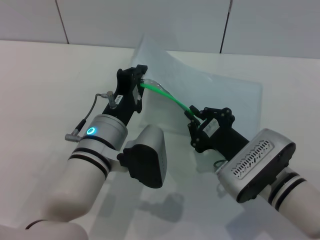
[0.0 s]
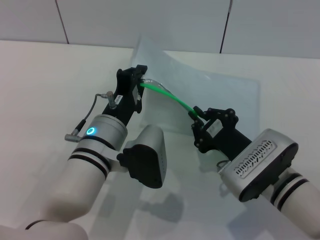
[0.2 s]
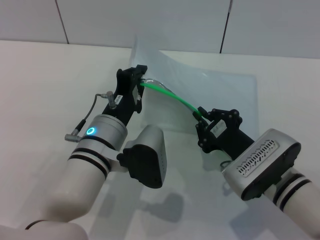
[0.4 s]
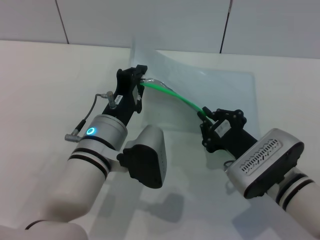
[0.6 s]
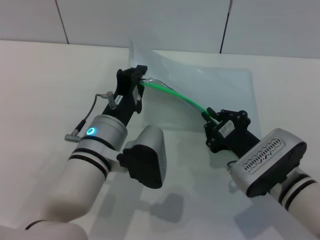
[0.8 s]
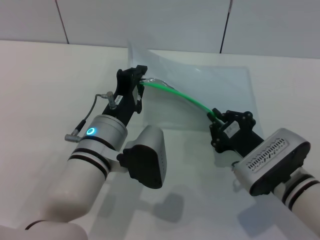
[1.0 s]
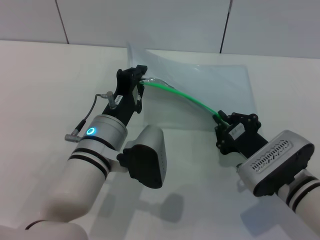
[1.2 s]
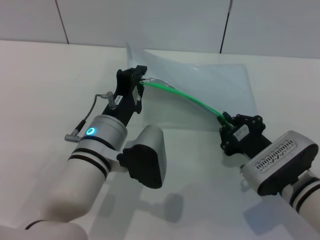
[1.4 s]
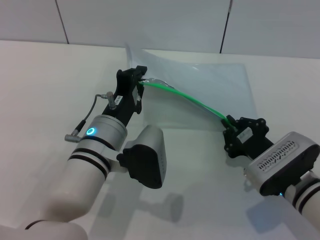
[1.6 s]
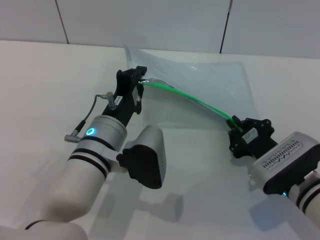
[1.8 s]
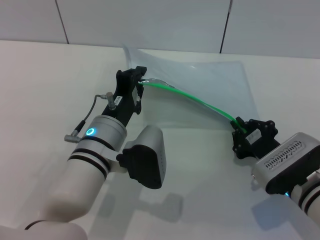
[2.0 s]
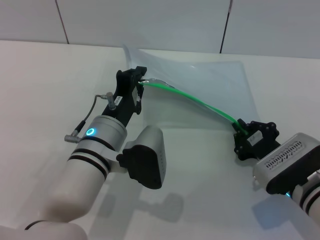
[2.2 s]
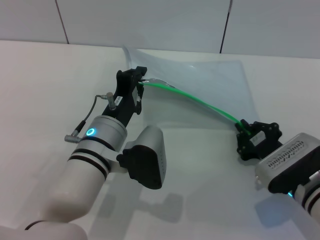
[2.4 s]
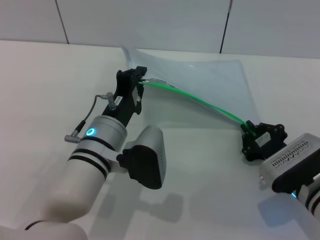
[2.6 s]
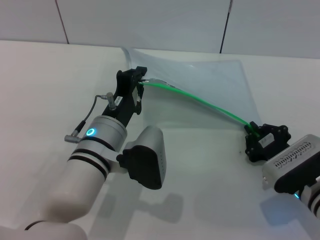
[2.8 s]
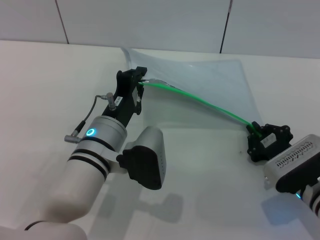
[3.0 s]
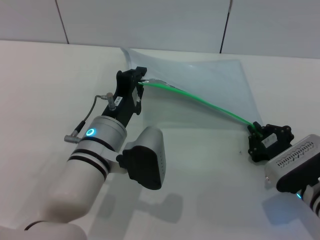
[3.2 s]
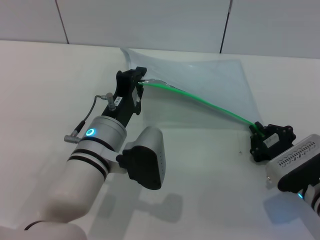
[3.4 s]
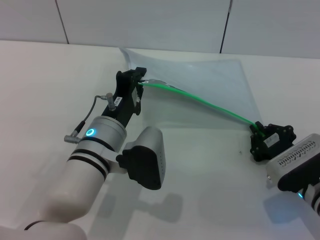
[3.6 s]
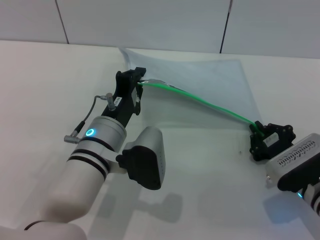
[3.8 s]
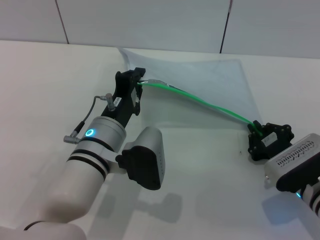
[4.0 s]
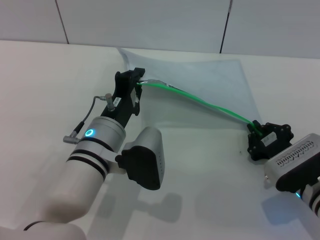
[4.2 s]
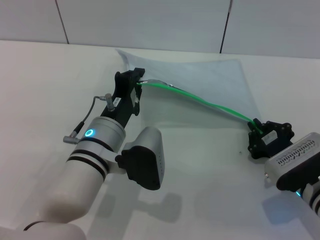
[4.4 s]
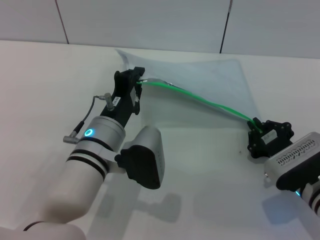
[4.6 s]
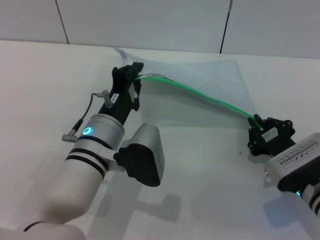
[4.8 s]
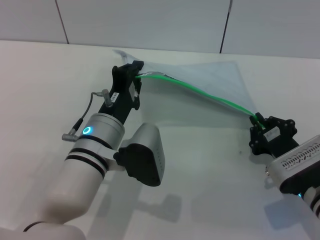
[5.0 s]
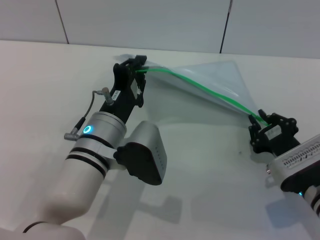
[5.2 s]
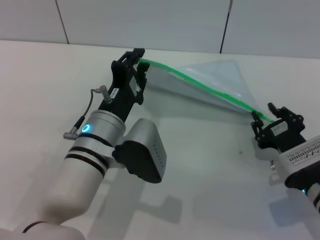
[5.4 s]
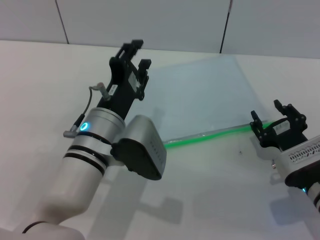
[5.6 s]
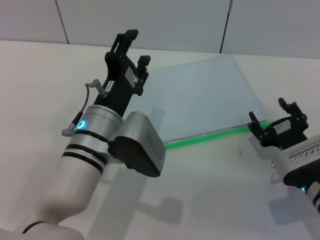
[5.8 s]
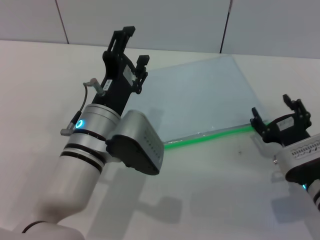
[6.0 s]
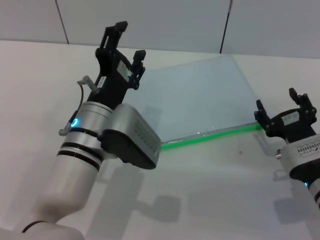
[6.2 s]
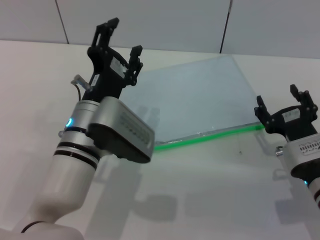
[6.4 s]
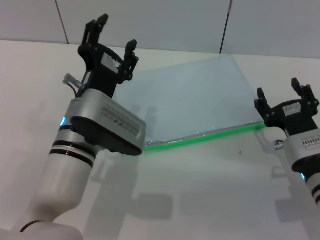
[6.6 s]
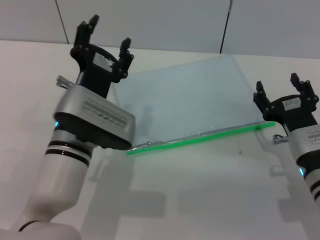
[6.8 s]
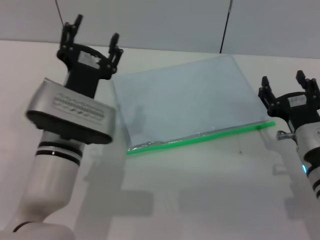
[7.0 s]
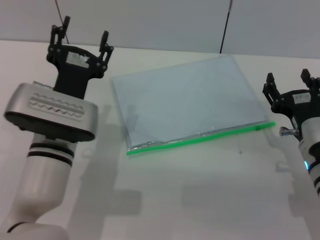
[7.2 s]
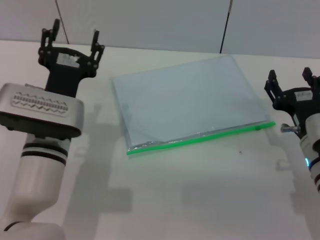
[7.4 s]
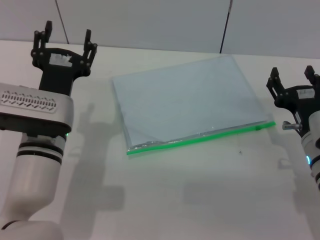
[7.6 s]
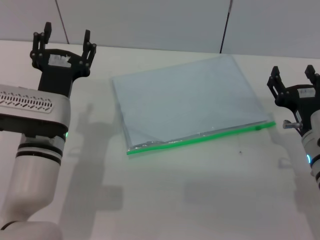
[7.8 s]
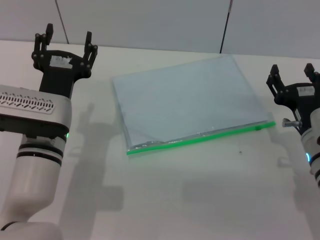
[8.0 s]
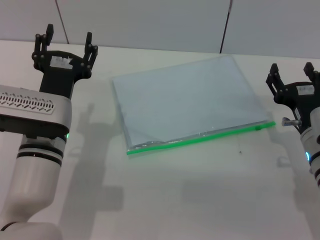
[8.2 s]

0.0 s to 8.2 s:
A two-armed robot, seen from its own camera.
Step, 0.0 to 5.2 s: Pulling up the zipper on the transparent plastic bag with the right gripper to close it.
Step, 5.4 to 5.8 s: Place the transparent plastic bag.
0.0 to 1.6 s: The right gripper shifts by roughly 5 cm.
1.6 to 5.0 s: There are only small adjustments of the grippers.
5.0 to 6.6 s: The left gripper opens; the right gripper opens its fingers.
6.6 to 8.2 s: The left gripper moves some 5 cm.

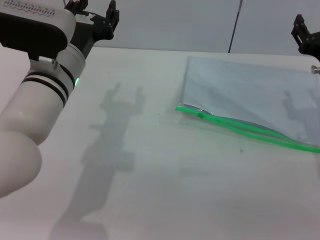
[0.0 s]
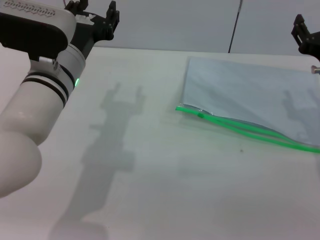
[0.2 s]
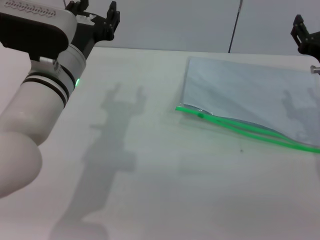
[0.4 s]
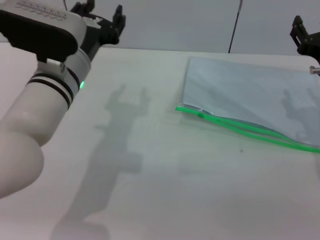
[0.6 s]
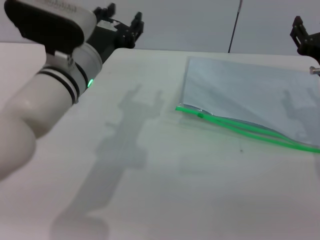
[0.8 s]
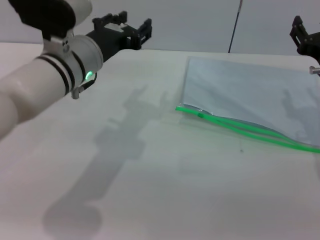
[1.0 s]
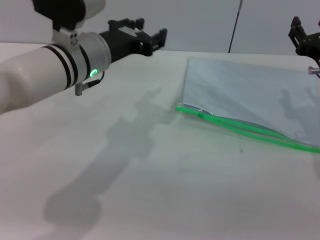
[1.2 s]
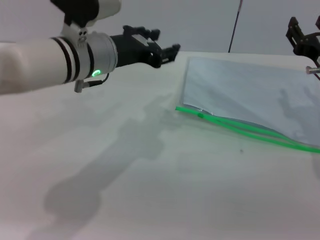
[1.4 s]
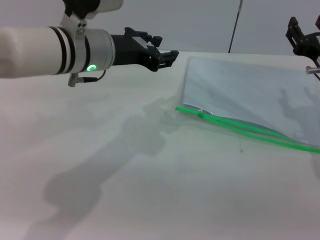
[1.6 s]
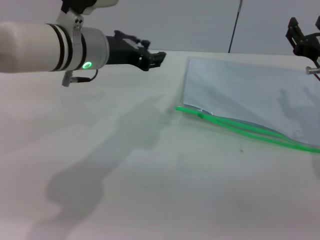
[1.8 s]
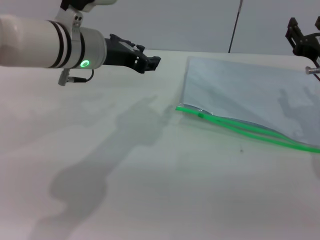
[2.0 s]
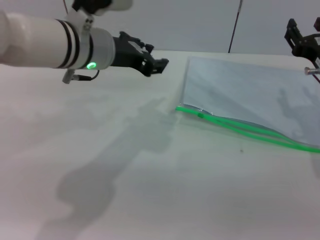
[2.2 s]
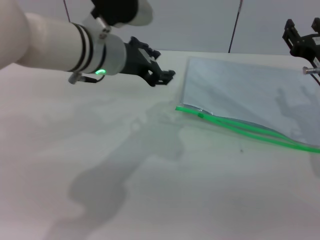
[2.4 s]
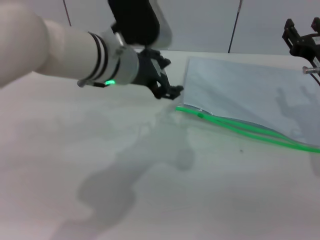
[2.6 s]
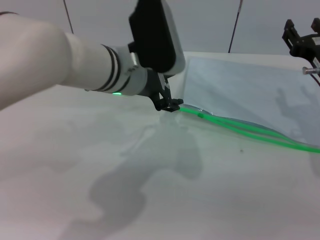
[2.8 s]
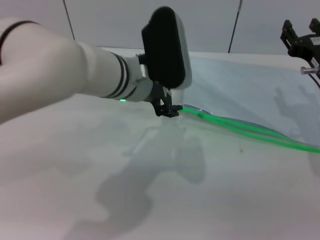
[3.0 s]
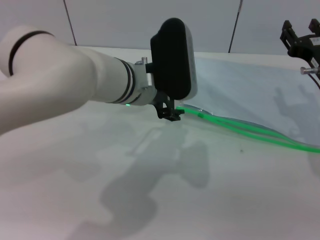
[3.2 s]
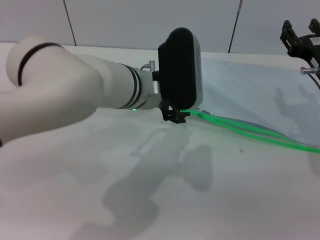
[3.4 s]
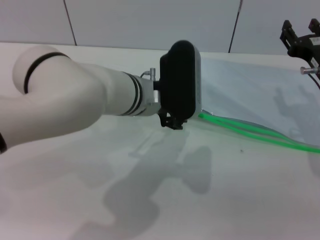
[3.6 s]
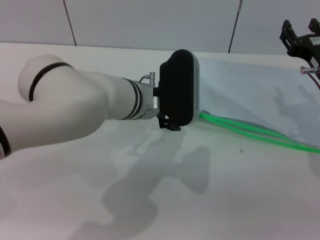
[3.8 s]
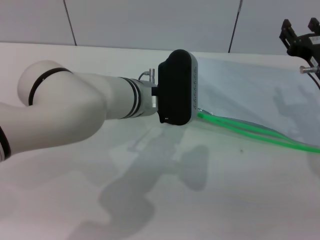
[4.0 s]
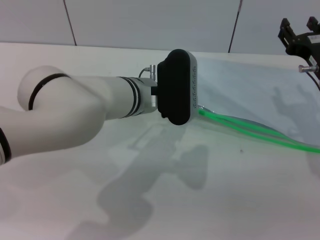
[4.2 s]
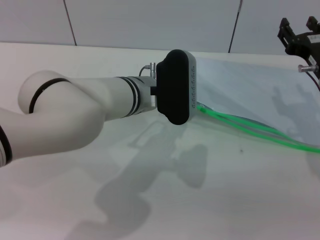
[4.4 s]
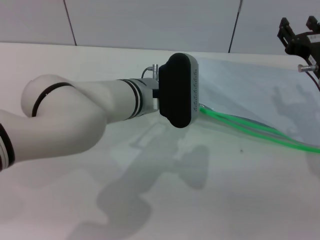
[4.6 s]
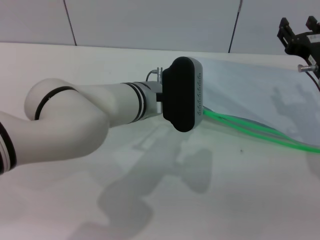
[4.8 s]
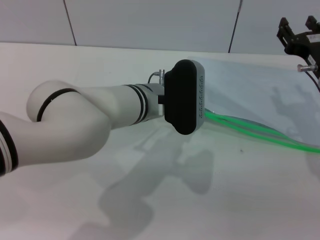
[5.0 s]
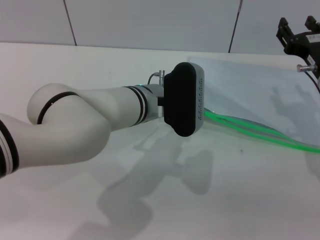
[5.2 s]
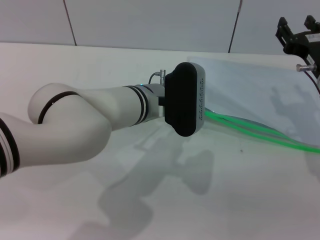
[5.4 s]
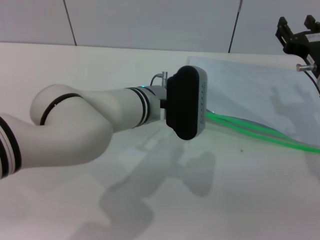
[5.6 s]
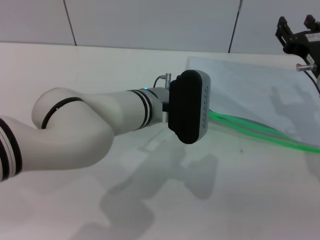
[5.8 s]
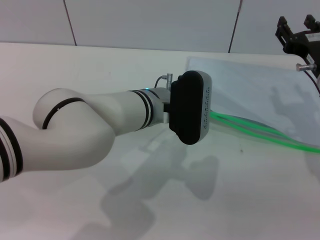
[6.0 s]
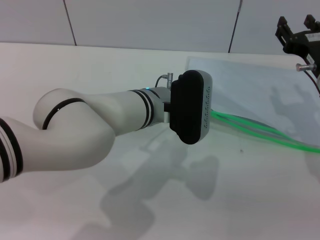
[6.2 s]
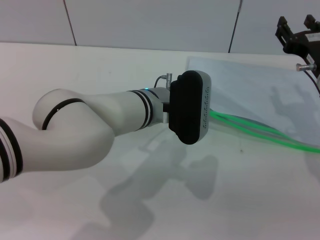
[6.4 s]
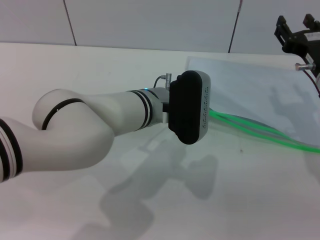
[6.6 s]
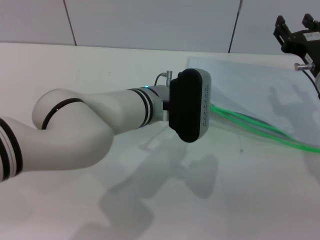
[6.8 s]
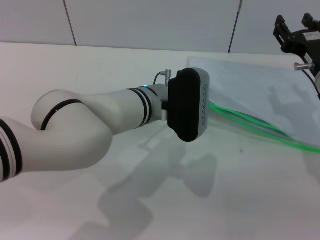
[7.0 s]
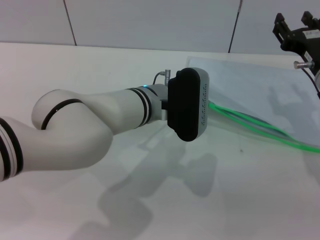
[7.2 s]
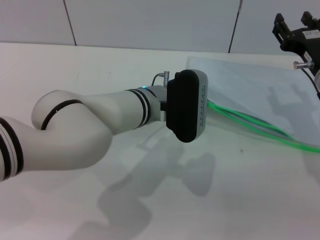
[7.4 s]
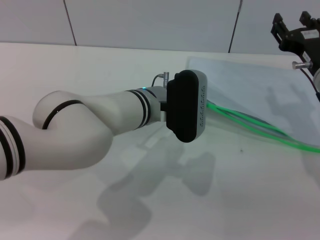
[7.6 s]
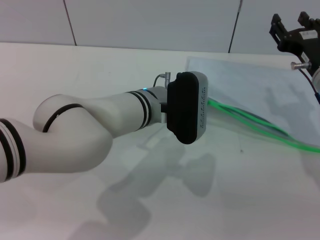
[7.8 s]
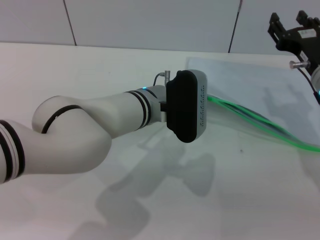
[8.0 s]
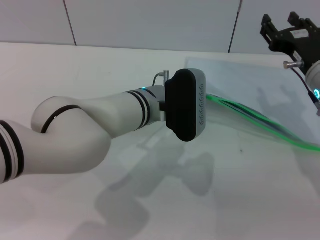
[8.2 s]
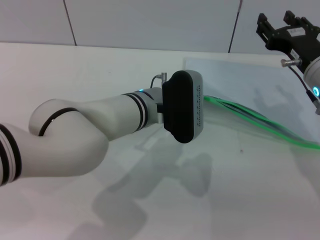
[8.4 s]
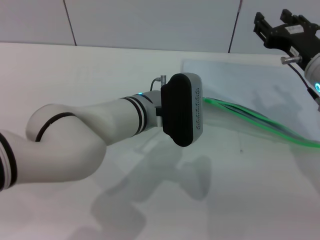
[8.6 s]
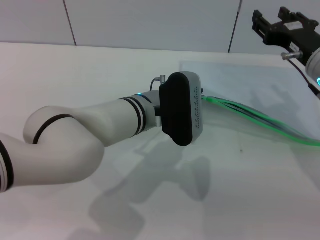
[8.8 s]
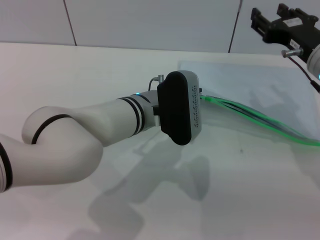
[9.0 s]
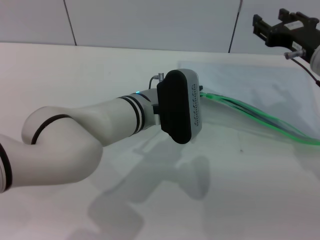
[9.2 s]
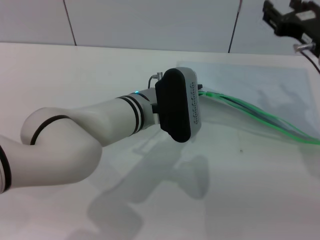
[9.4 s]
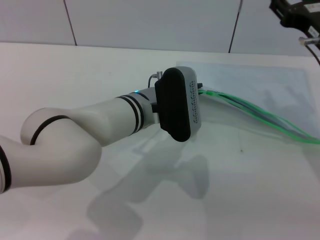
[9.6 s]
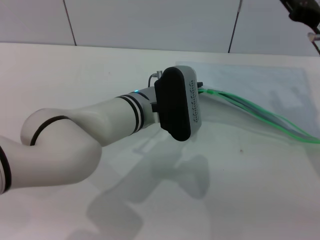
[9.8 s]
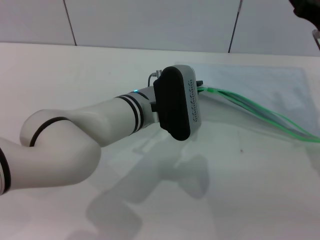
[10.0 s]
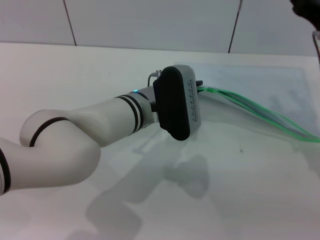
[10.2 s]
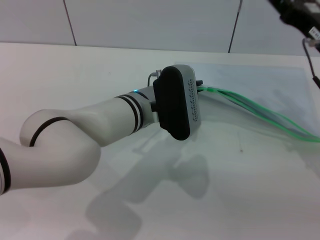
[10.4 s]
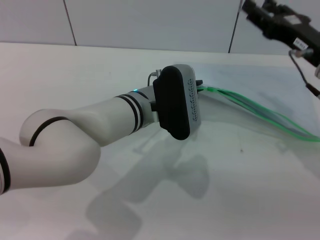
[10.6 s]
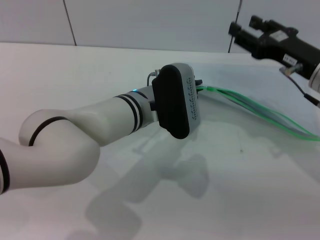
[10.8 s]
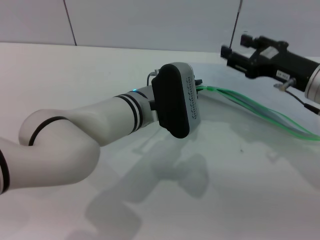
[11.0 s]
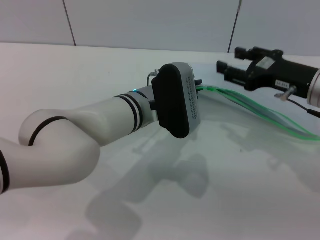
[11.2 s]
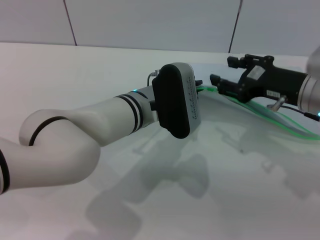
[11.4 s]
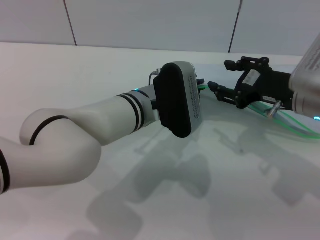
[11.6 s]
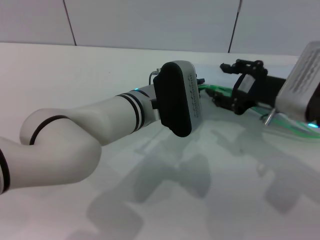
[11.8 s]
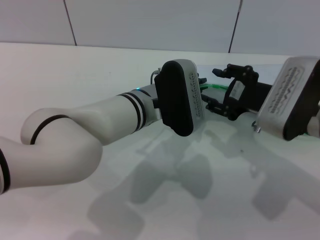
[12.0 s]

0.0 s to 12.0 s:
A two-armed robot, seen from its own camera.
Step, 0.0 to 11.2 s: Pick up the transparent plastic bag with the left gripper.
0.0 to 1.6 s: The left gripper changes place by some 5 cm.
1.6 to 3.0 s: The left gripper shifts some 5 cm to the right.
3.0 to 4.4 s: The left gripper shifts by about 5 cm.
4.4 to 6.0 s: There are only small adjustments of the grippers.
6.0 to 7.6 s: The left gripper closes its fingers.
7.6 to 9.0 s: The left gripper closes.
10.4 to 12.0 s: The right gripper changes place by approximately 5 cm.

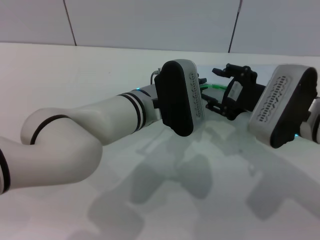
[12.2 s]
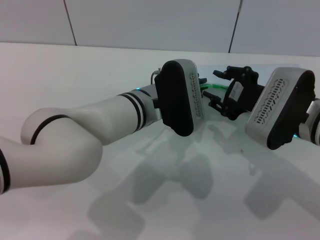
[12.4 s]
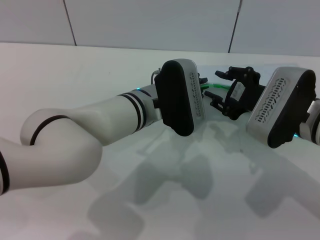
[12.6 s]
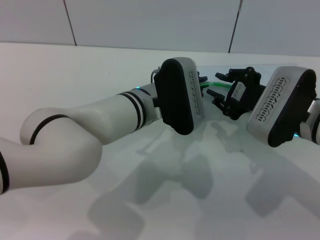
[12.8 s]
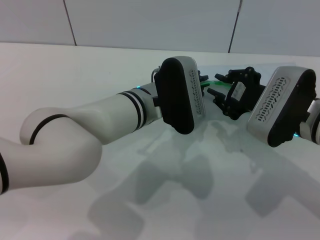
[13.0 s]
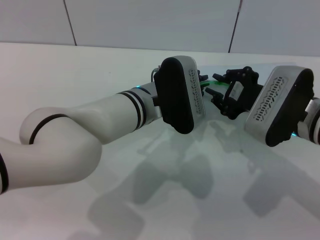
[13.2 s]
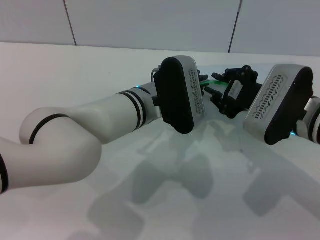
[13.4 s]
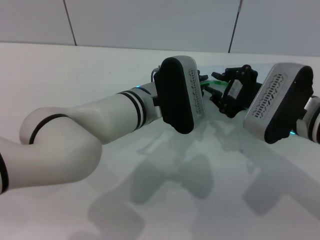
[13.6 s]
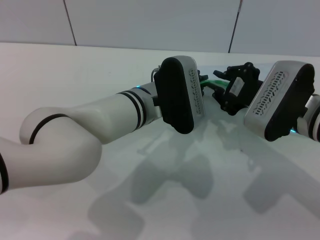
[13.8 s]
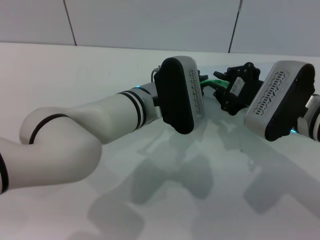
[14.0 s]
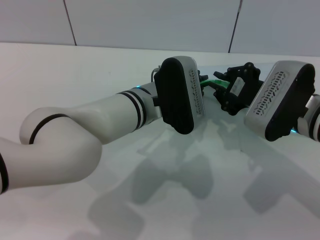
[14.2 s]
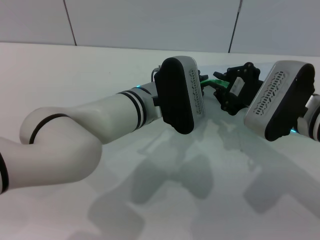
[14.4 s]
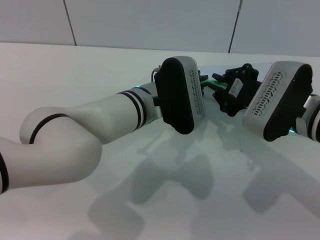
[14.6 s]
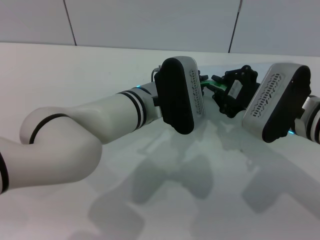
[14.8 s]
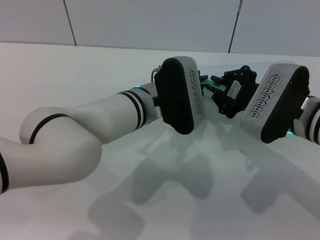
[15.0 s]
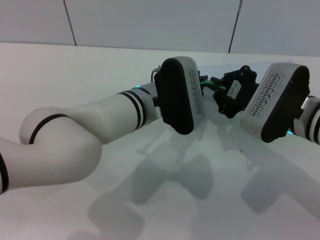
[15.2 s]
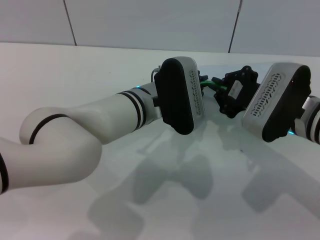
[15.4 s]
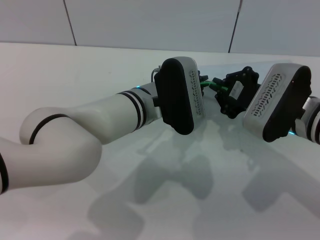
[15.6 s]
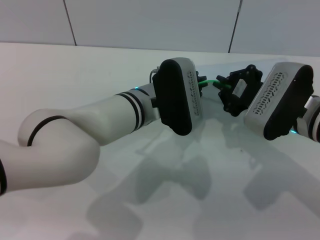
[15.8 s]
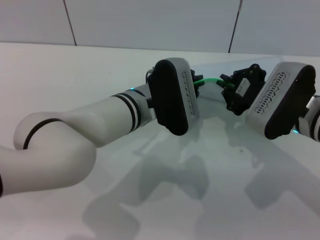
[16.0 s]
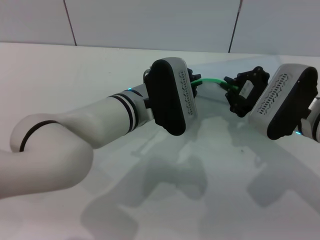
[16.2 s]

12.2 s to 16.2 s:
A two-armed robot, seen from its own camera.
12.2 to 13.6 s: The right gripper closes its fingers.
13.6 to 14.8 s: The two grippers keep their place.
14.8 to 16.2 s: There are only small adjustments of the grippers.
